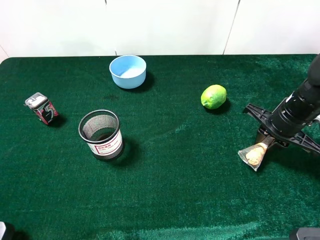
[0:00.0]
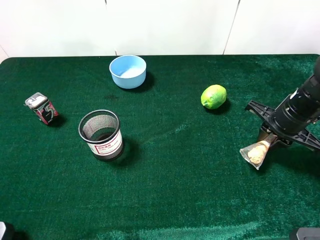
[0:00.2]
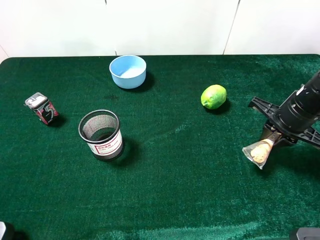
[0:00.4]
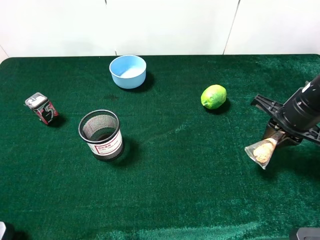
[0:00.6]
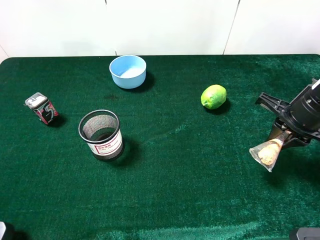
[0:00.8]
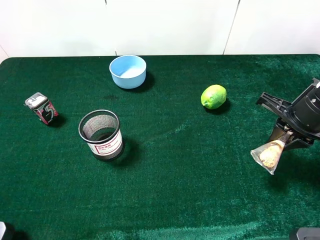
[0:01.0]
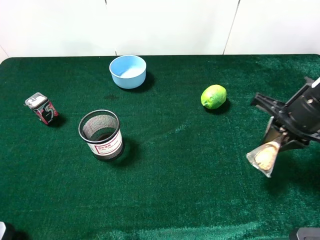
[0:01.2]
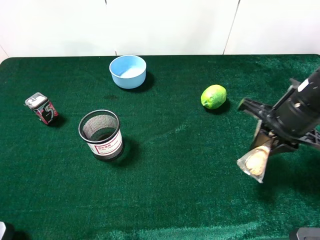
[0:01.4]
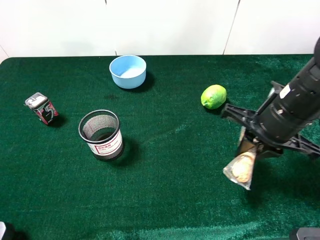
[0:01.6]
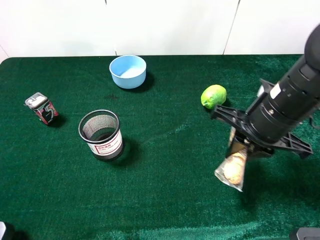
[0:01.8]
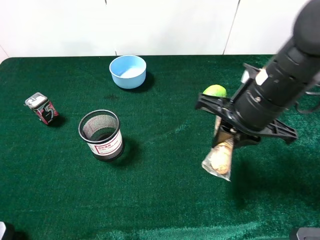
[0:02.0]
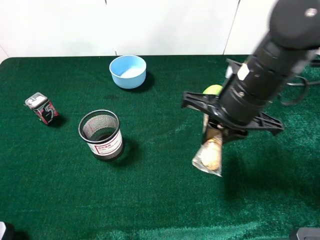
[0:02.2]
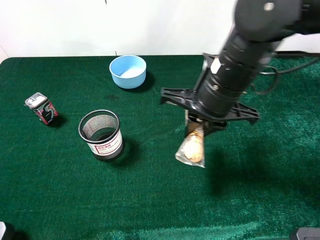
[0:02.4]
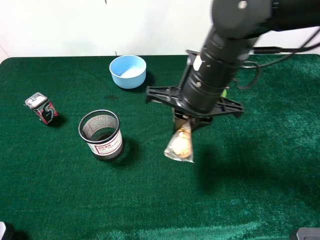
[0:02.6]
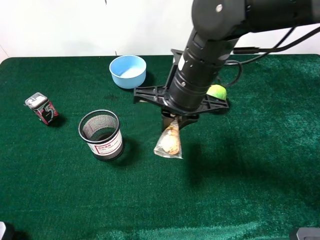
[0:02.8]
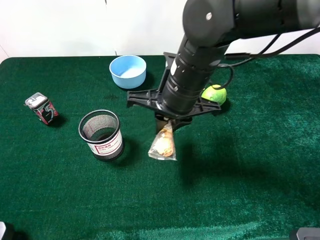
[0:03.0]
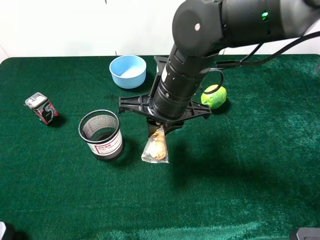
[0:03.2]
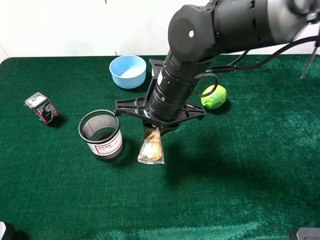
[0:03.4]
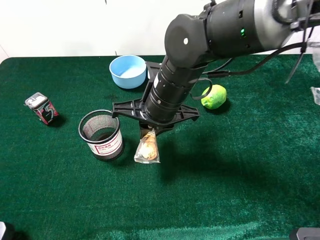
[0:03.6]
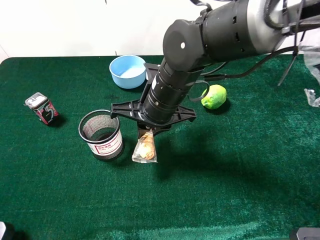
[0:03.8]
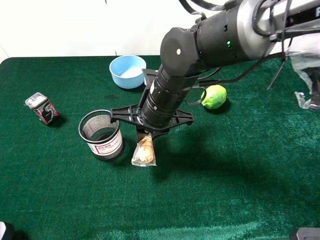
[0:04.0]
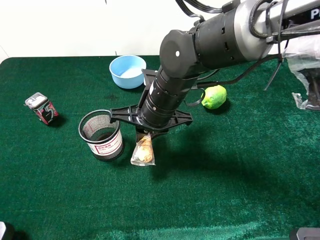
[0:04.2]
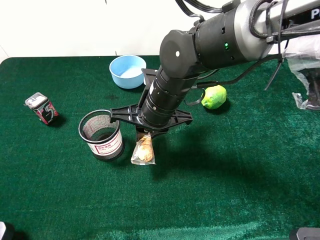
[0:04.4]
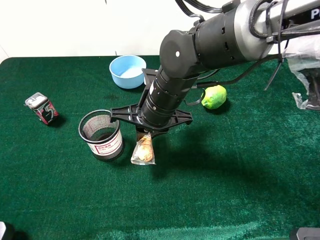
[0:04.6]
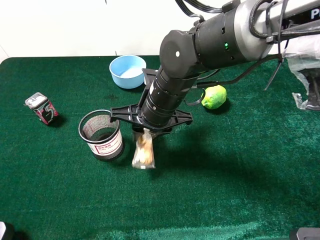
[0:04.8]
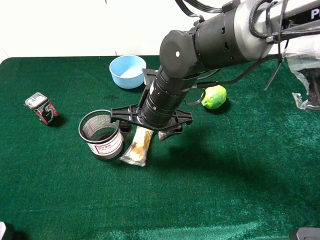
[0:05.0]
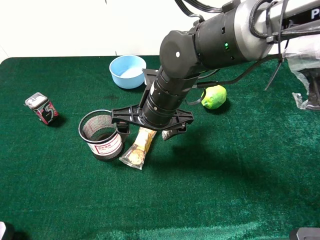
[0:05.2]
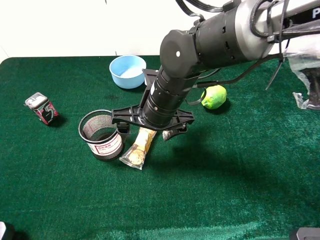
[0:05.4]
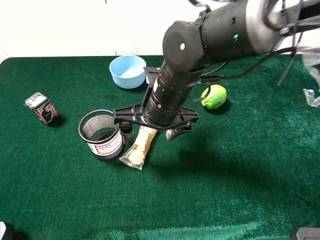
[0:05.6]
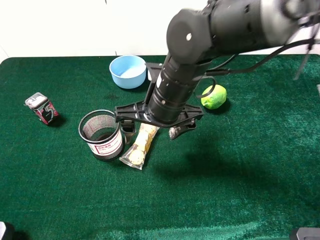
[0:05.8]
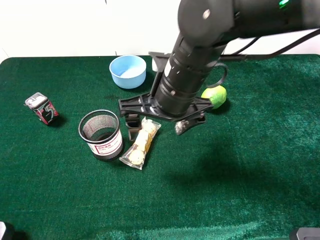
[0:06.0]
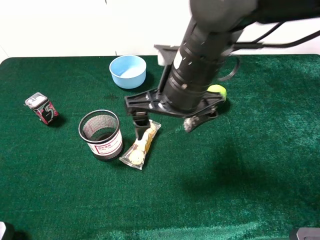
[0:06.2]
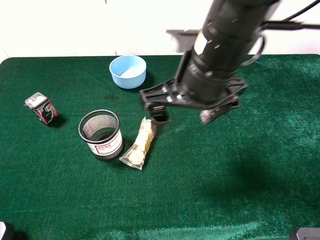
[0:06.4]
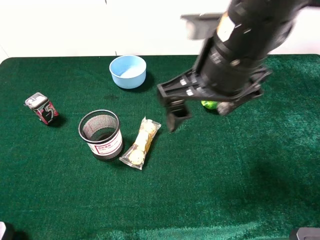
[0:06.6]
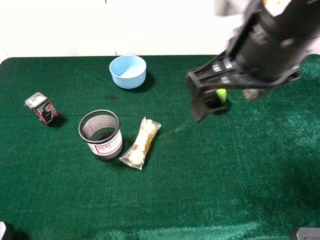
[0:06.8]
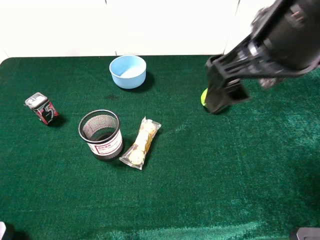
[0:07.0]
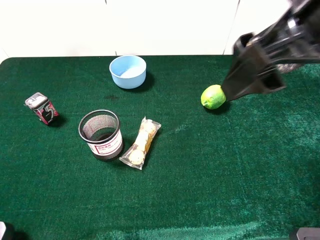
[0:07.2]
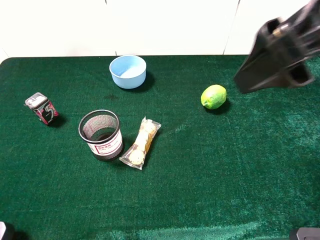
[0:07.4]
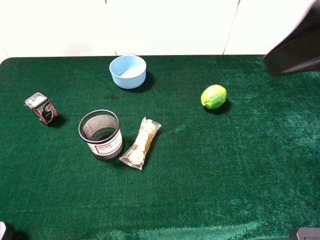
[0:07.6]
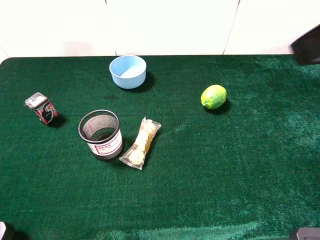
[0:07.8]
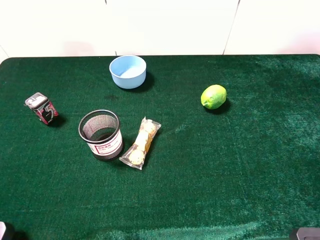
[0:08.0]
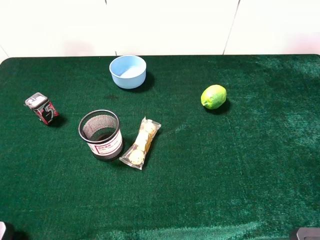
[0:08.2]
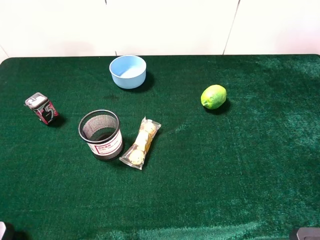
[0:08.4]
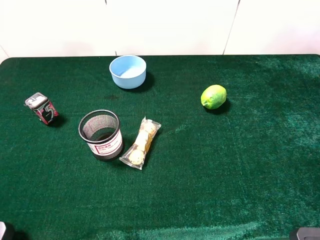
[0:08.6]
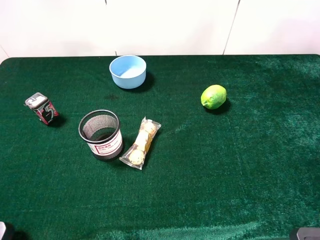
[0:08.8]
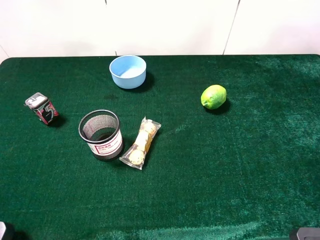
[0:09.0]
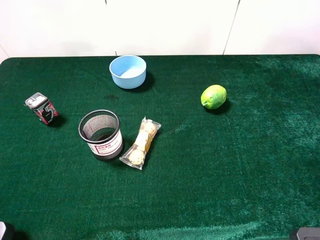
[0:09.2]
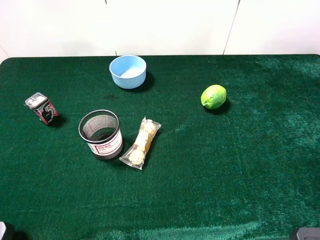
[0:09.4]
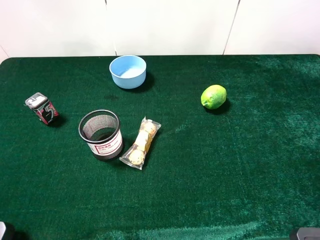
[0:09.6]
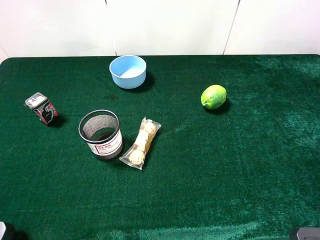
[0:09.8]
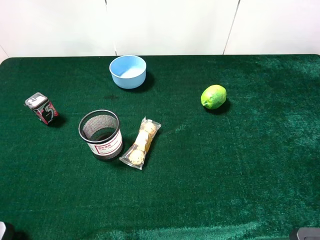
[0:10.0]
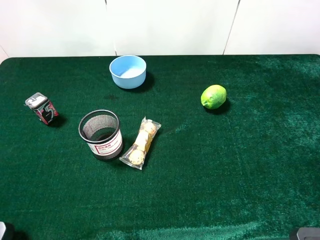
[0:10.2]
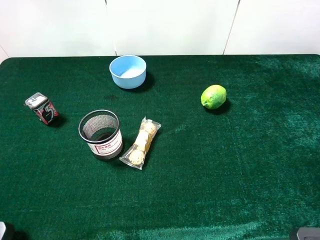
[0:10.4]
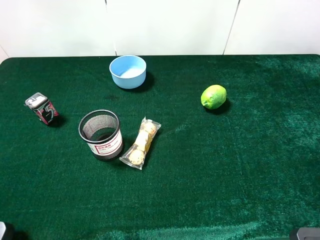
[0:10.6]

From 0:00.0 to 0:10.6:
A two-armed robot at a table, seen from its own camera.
Task of the whole recording: the gripper move the object.
Step, from 0:00.0 to 0:05.6: Place the chocolate on the table with the right gripper.
From 0:00.0 to 0:01.6: The right gripper is displaced to the left, upward and backward by some 10 cm.
From 0:01.6 to 0:03.0: The right gripper moves to the left, about 15 cm.
From 0:03.0 to 0:04.6: The right gripper shifts by about 5 cm.
From 0:04.6 to 0:06.0: The right gripper moves upward, some 5 cm, and opens its fingers.
From 0:06.0 to 0:07.6: The right gripper moves upward, to the right and backward, approximately 25 cm.
From 0:07.6 to 0:09.0: The right gripper is displaced to the right, backward and downward by some 15 cm.
